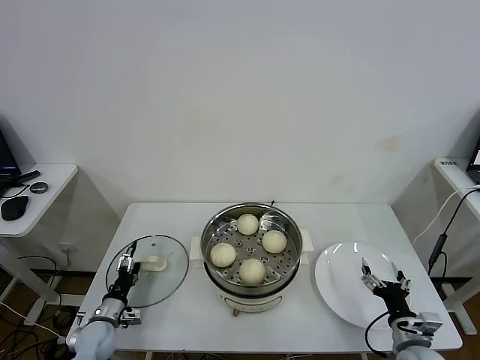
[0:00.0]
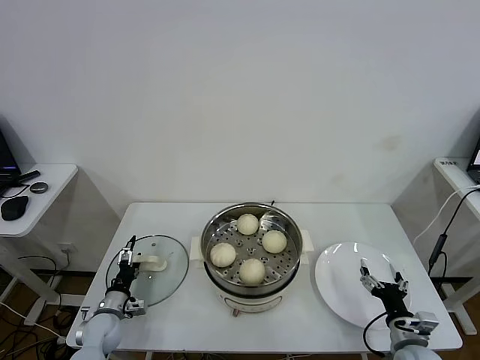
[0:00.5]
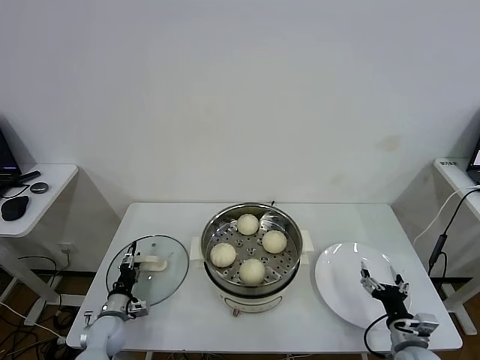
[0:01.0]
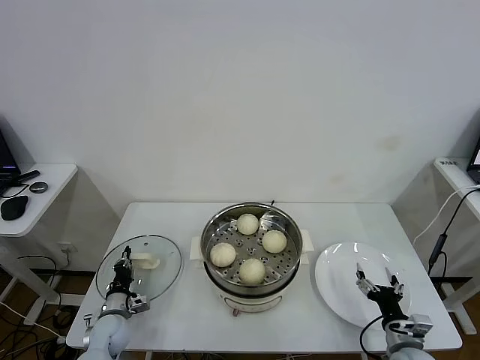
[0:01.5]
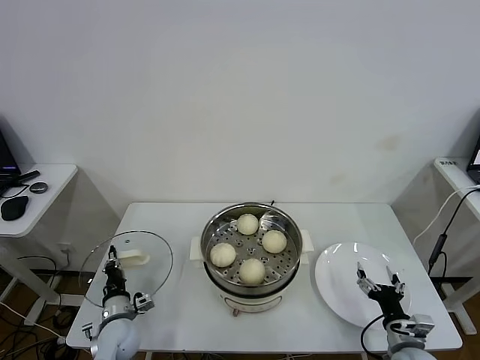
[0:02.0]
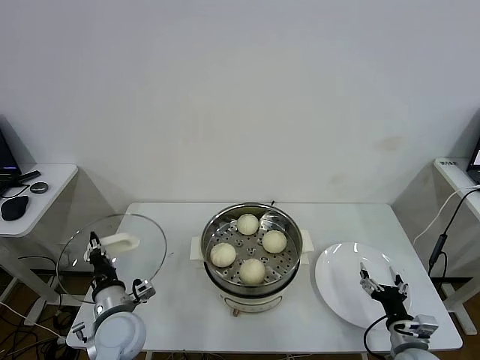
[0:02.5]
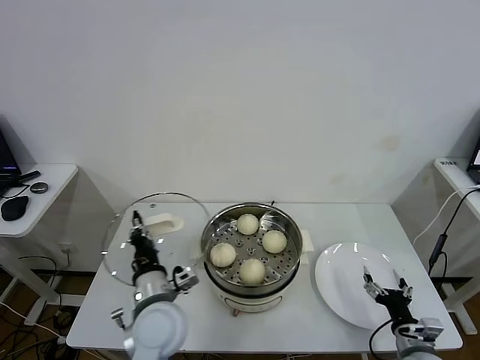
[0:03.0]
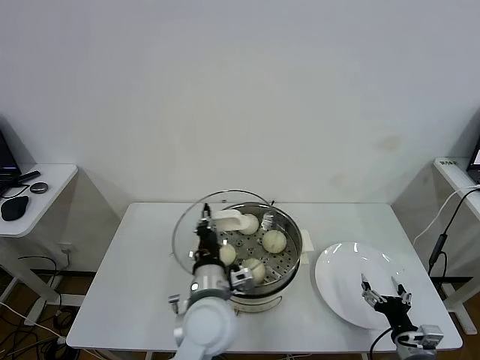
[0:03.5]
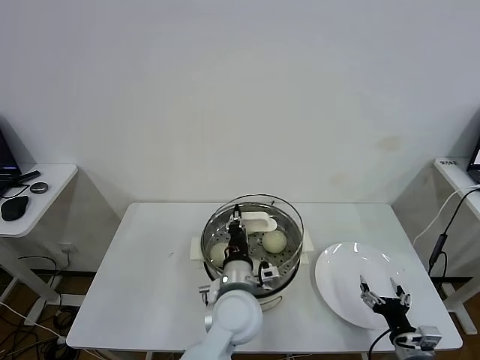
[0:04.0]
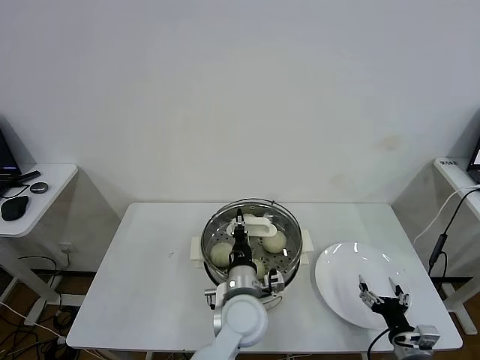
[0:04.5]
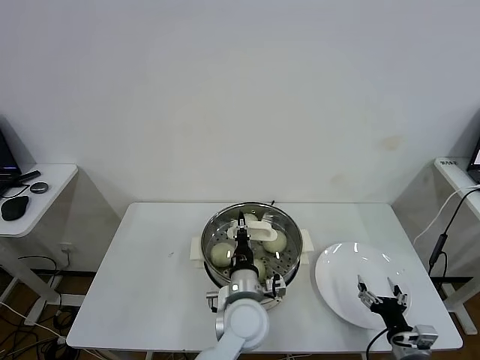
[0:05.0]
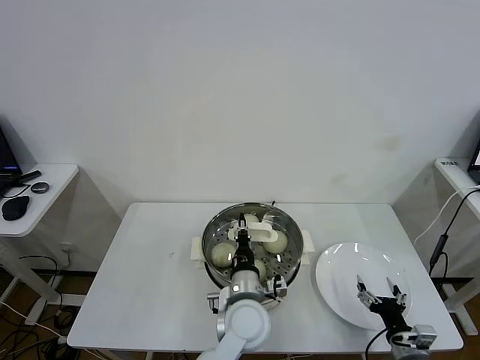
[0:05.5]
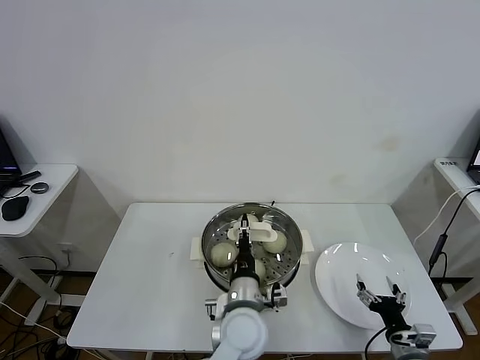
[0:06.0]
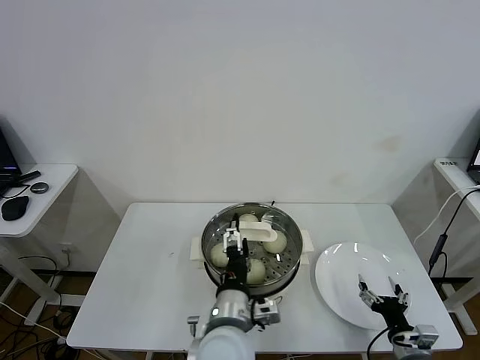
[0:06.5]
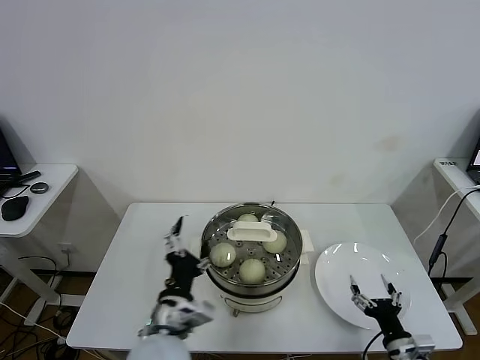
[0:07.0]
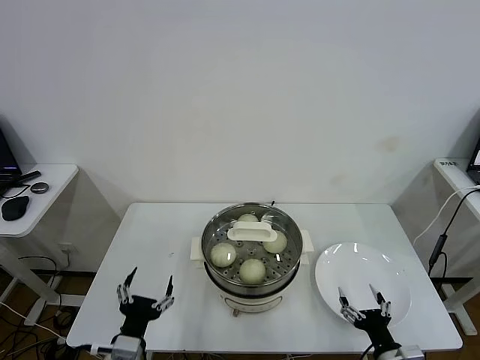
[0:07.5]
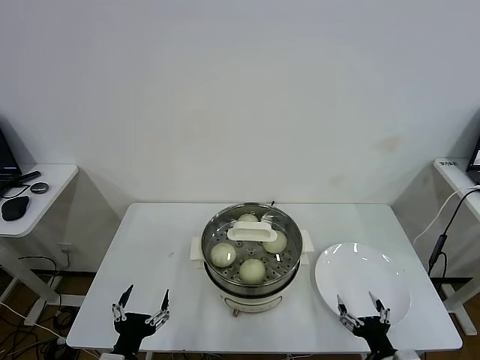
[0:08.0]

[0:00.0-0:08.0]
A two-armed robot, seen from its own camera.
Task of the whole recording: take steamed baozi put them in steamer.
Step, 2.0 to 6.5 s: Place the pot lid on the steamer with left gripper.
0.0 to 2.0 s: The left gripper goes some 5 cm to the right, and closes its fingers.
2.0 to 4.0 s: The left gripper goes roughly 35 cm to the right and upward.
4.0 to 6.0 s: The grippers move only a little.
6.0 to 8.0 s: The right gripper moves backward, approximately 5 cm; the left gripper is displaced to the left and backward by some 30 cm, and opens.

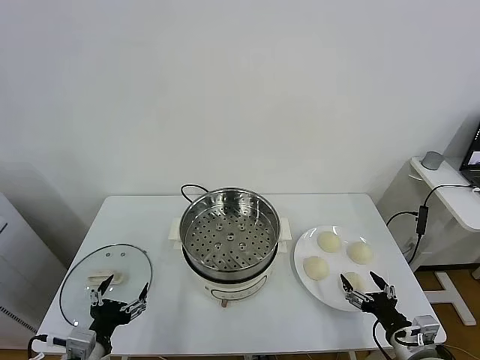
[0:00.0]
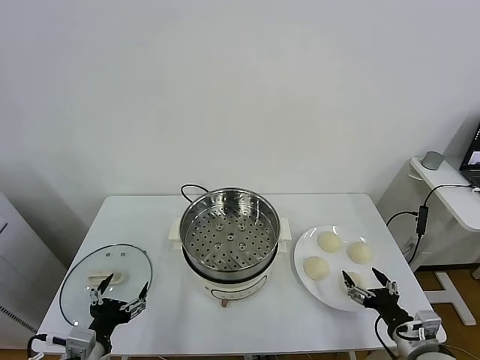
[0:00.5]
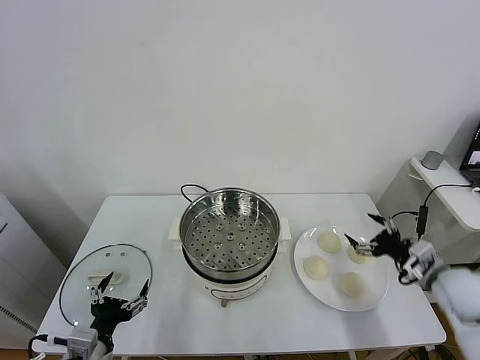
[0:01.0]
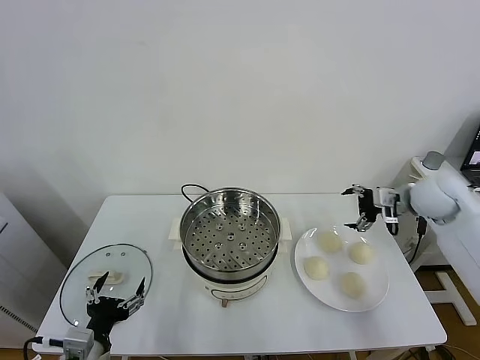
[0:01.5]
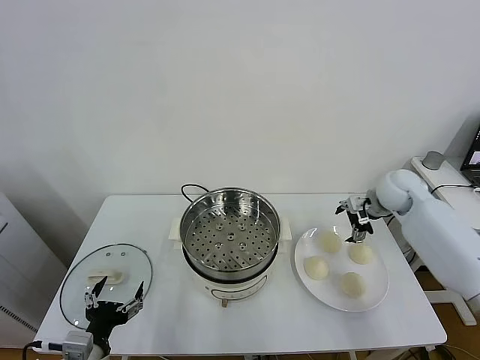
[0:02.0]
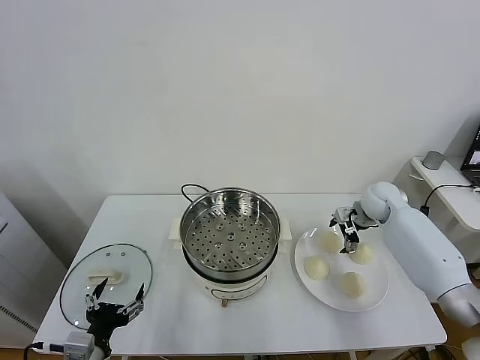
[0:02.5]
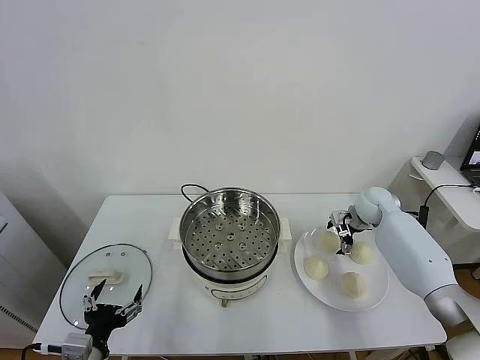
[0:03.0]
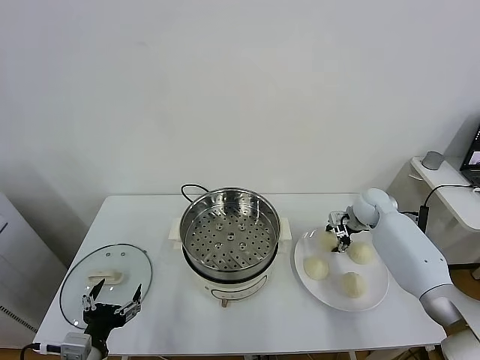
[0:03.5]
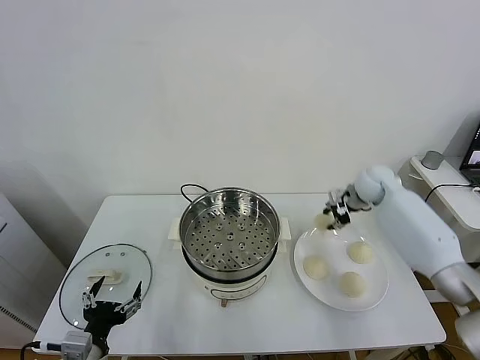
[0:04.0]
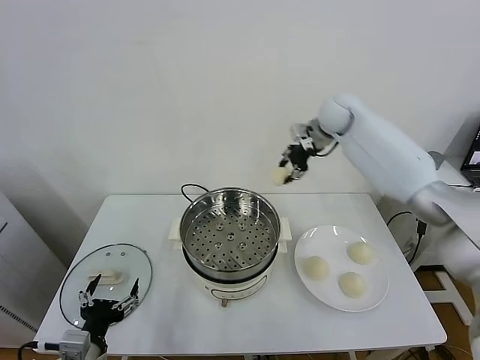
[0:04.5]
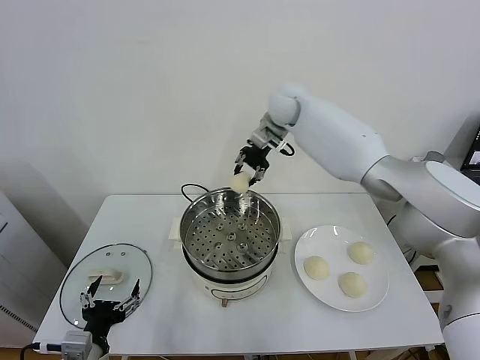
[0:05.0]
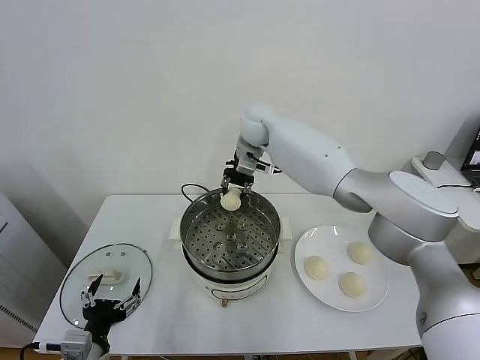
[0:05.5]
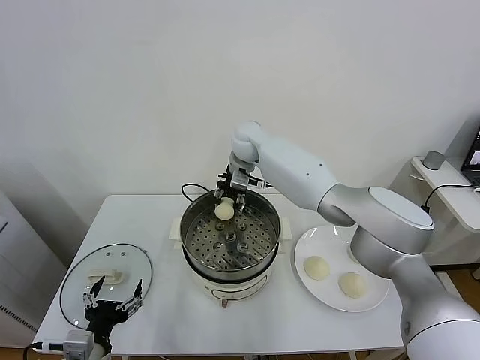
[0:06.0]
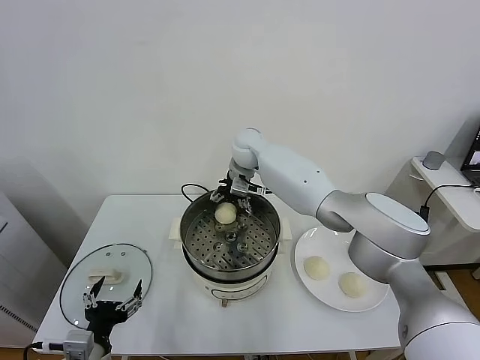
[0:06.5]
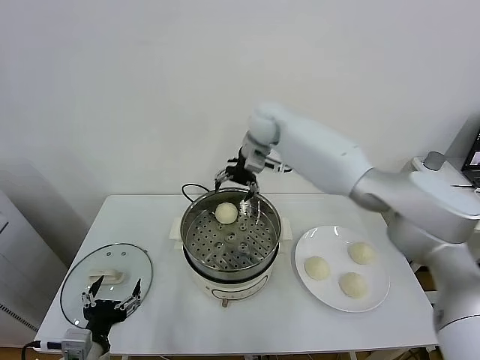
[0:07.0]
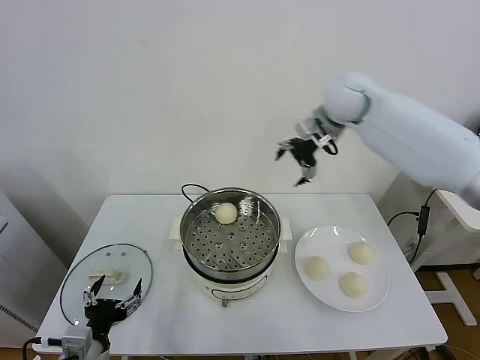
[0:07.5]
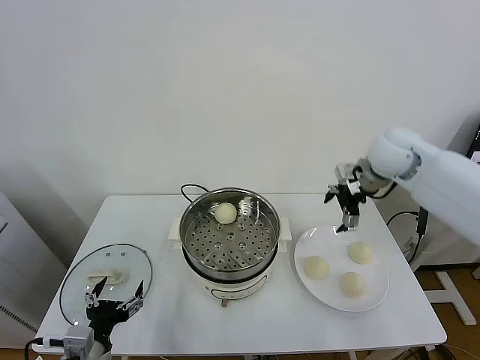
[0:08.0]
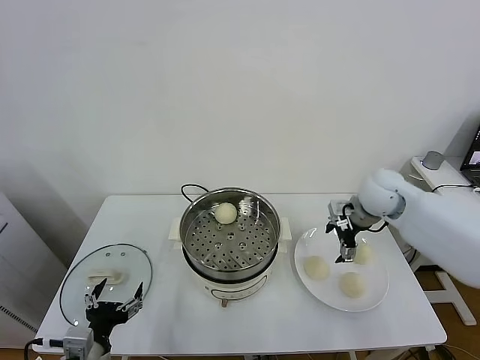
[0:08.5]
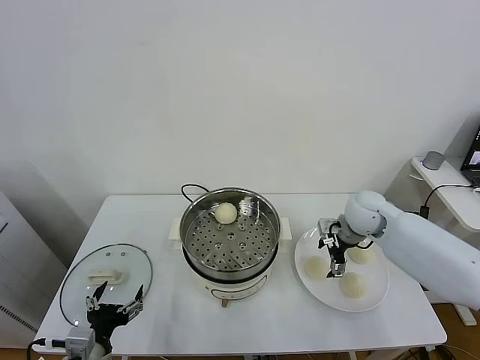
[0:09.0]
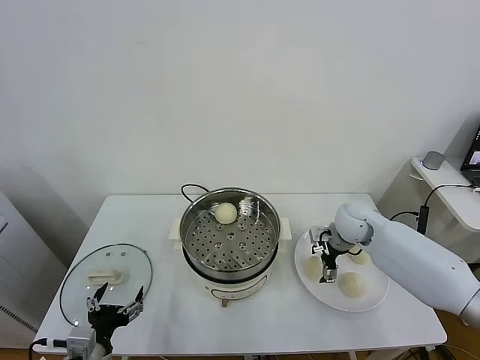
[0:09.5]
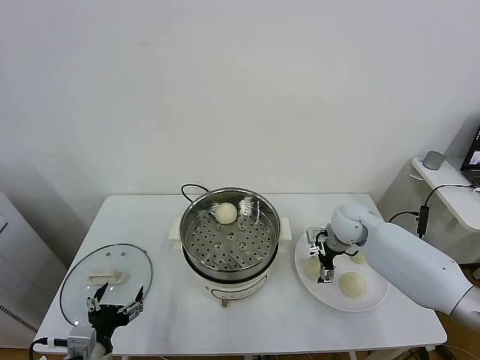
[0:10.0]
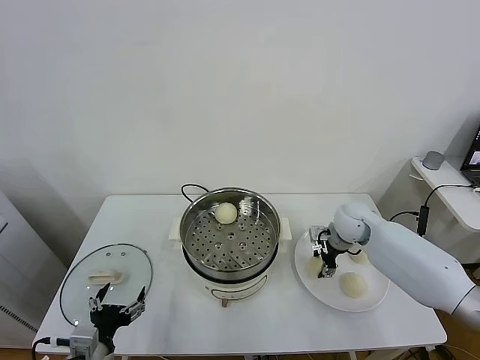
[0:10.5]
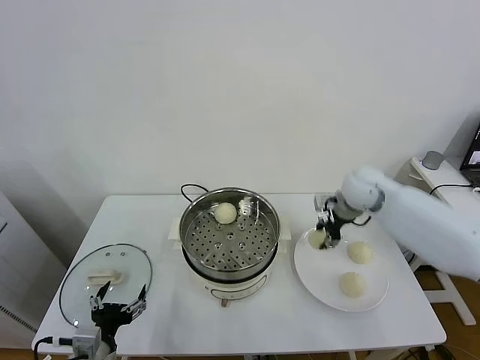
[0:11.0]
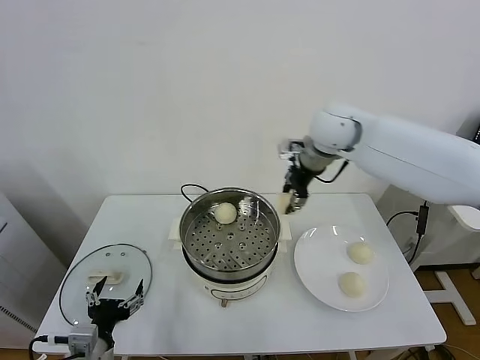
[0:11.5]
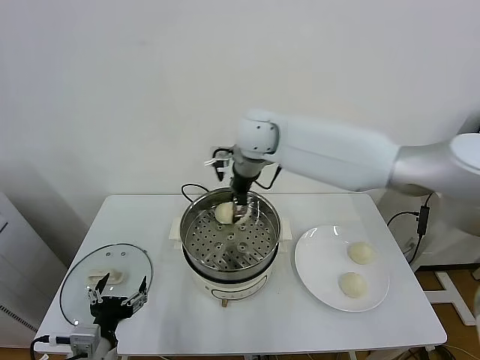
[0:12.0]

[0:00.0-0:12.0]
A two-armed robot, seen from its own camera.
Task of the whole recording: take steamed baozi put them in steamer.
Step, 0.0 to 3.5 s: Grasp the baozi in the plate with right gripper.
Step, 4.0 to 6.5 s: Place the baozi on the steamer with right gripper.
Step, 7.0 to 10.5 s: Grasp the baozi in the plate with right gripper.
2.0 to 4.0 s: The right gripper travels forward by some 5 cm, goes downward and returns, about 5 cm each way, and closes.
4.0 to 6.0 s: The right gripper is displaced to the left by about 30 cm.
6.0 to 8.0 s: The right gripper moves to the right and backward, roughly 30 cm, and opens up.
8.0 to 10.0 s: The right gripper goes roughly 20 cm downward.
10.0 to 12.0 s: The right gripper is displaced to the left and upward by some 35 cm, and closes its fingers.

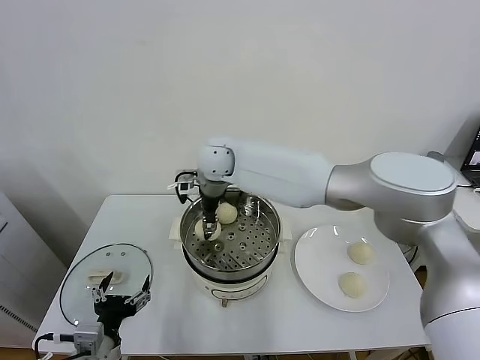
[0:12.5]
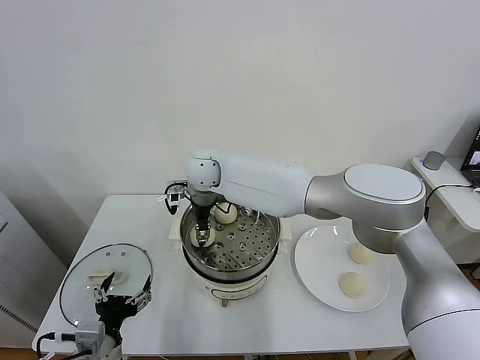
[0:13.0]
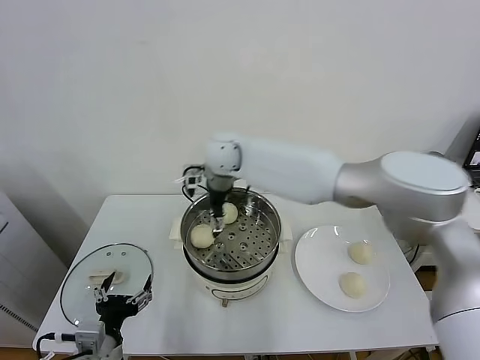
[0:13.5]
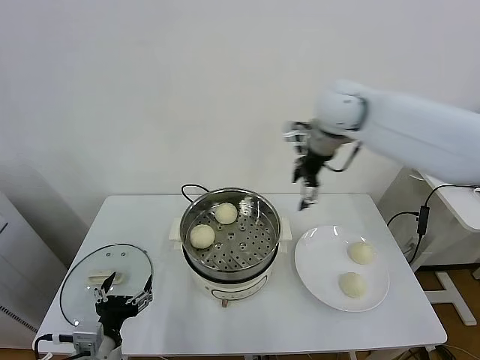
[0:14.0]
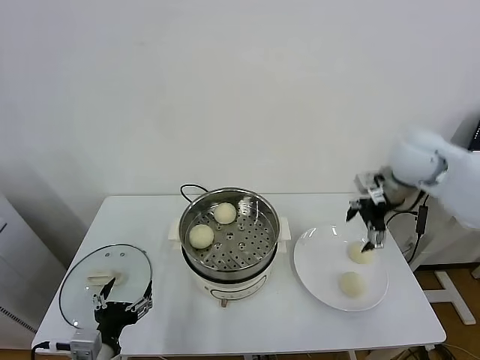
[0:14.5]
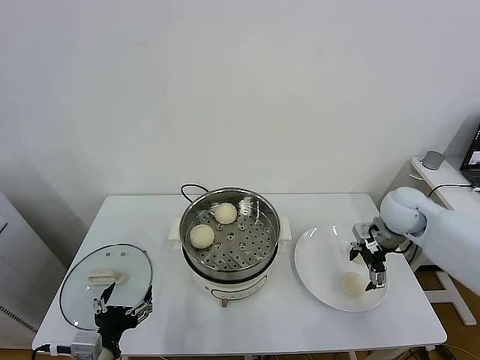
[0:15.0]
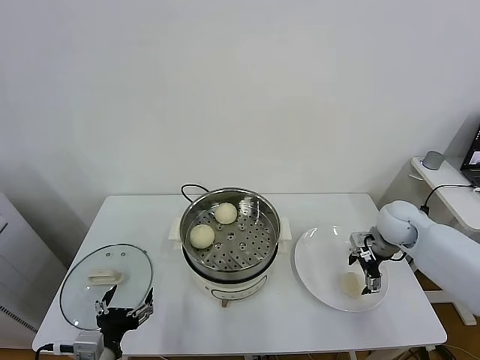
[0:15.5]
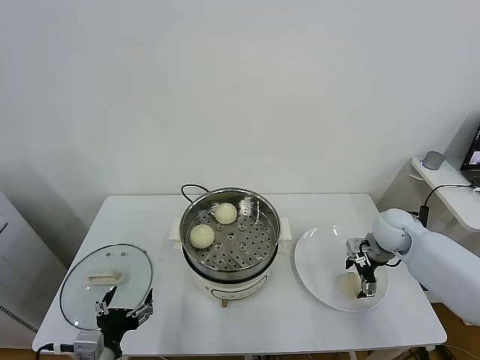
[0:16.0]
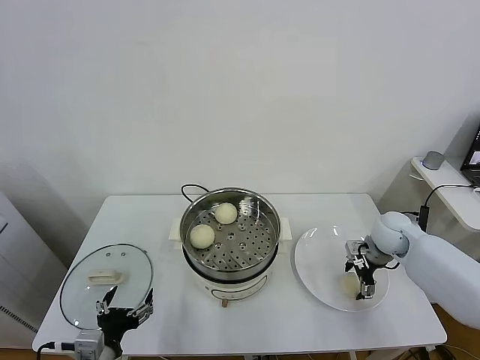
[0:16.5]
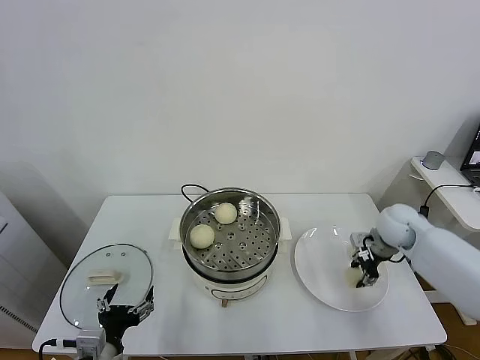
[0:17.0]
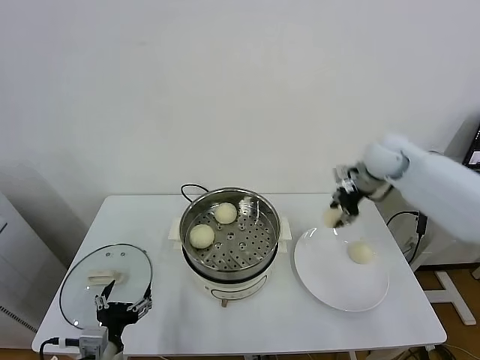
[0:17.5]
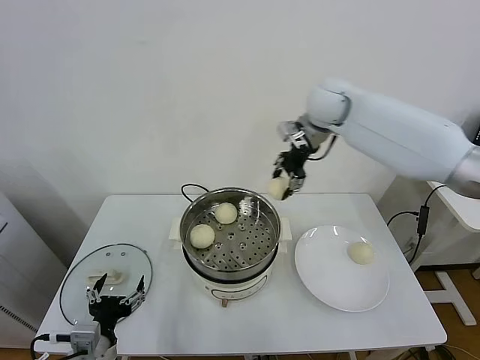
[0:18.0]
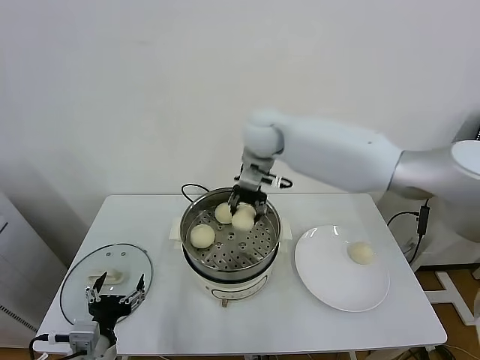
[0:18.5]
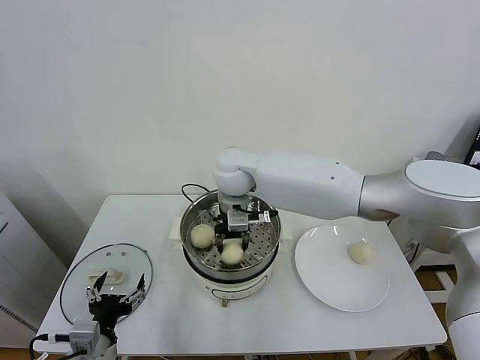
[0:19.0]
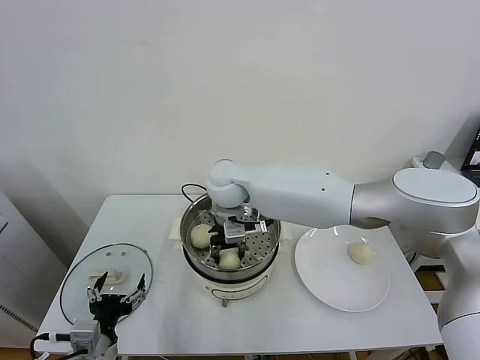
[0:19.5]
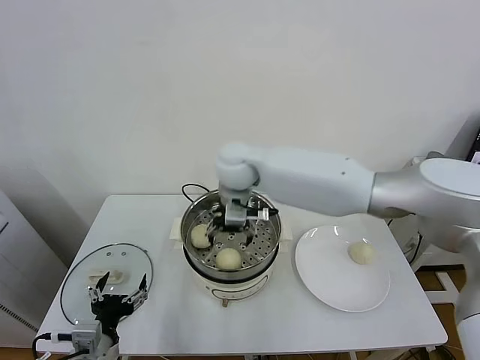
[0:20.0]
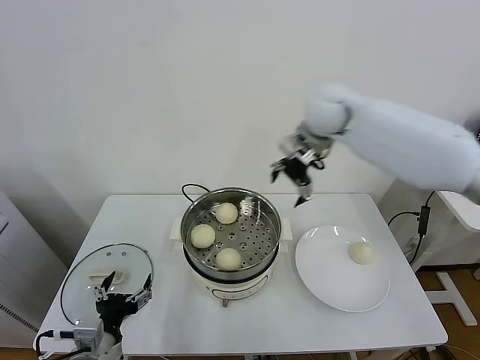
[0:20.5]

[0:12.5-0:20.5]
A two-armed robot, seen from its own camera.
Task of the whole recording: take steamed baozi put them in steamer.
Step, 13.5 to 16.5 s: Grasp the baozi in the plate with right gripper.
Step, 17.0 to 19.5 s: Place the baozi on the steamer with right gripper.
12.5 to 14.5 s: The right gripper is displaced to the right by roughly 40 cm, and opens its fingers.
14.5 to 16.5 s: The right gripper heads downward, covering roughly 20 cm.
16.5 to 18.5 s: The right gripper travels to the left and upward by about 40 cm, and closes.
18.5 to 20.5 s: The right gripper is displaced to the right and upward by roughly 20 cm, and opens.
